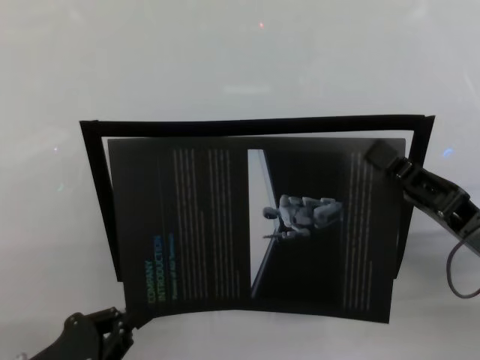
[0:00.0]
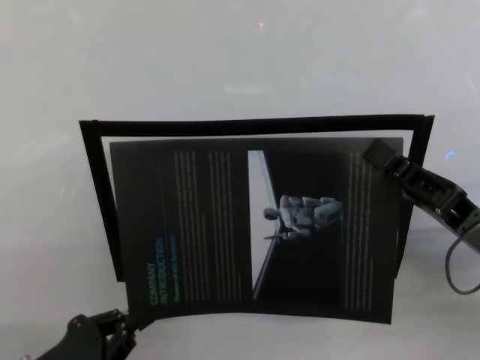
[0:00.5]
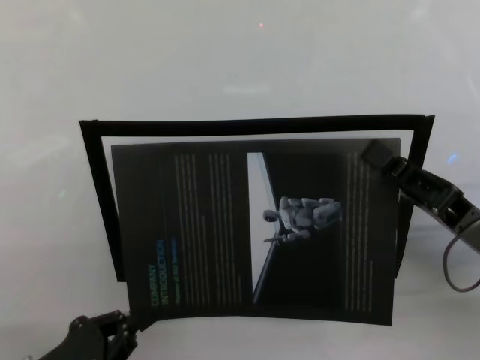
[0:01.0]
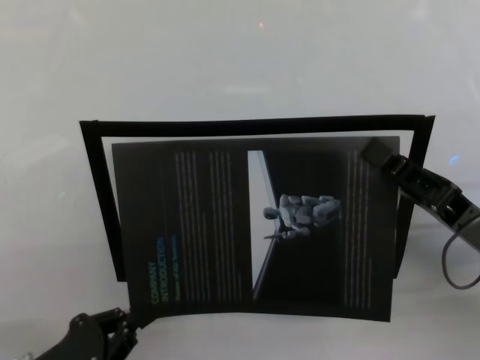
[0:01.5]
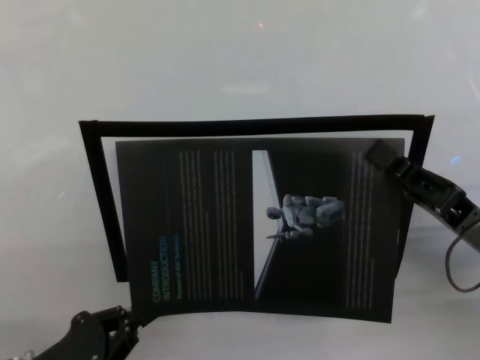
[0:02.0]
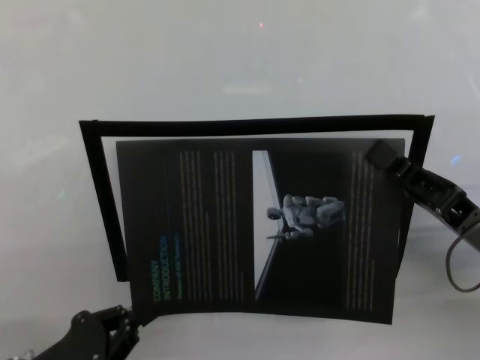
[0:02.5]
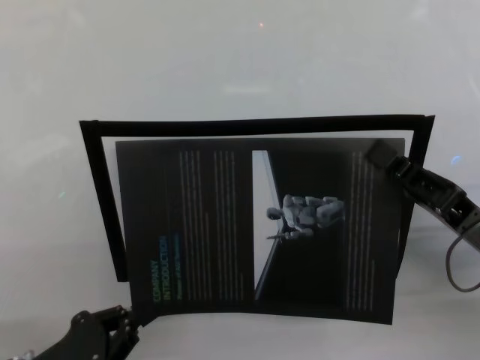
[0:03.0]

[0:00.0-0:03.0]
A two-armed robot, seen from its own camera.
Task of the whole recording: stick the poster on the table by hand.
Step, 0:00.0 to 0:02.5: Stick the advertisement in the top-right corner area with both grippers.
